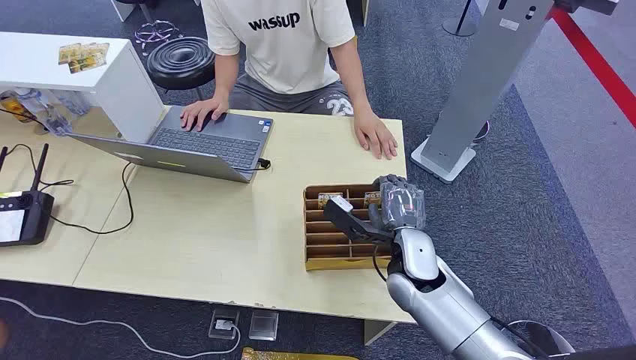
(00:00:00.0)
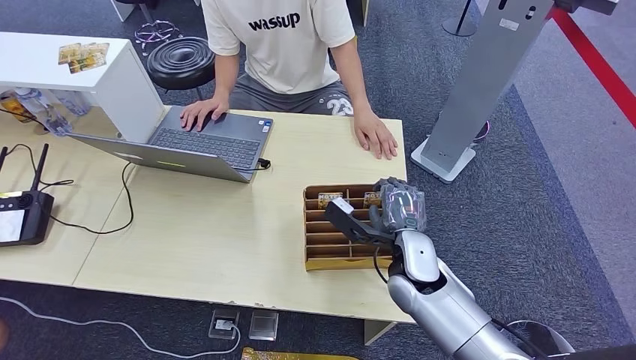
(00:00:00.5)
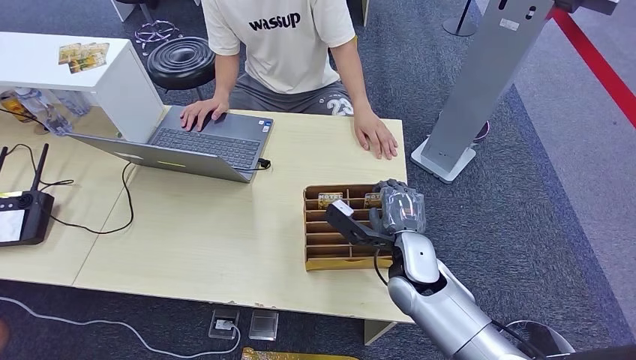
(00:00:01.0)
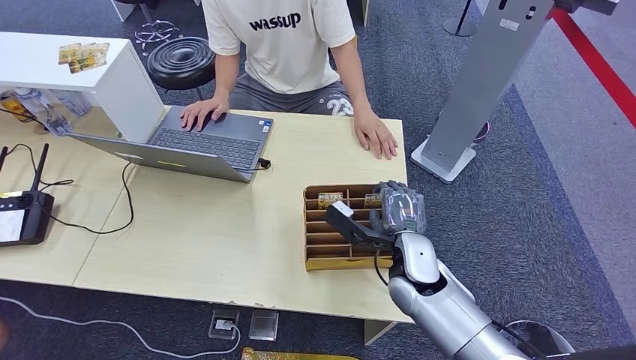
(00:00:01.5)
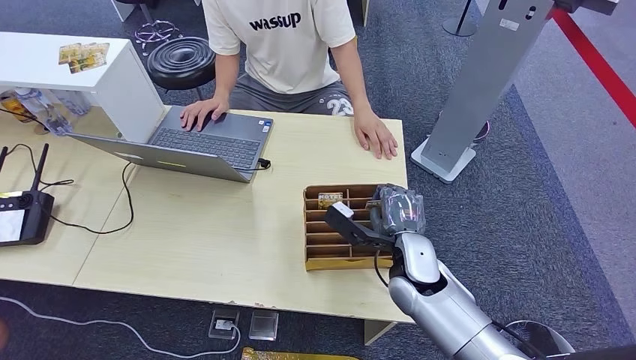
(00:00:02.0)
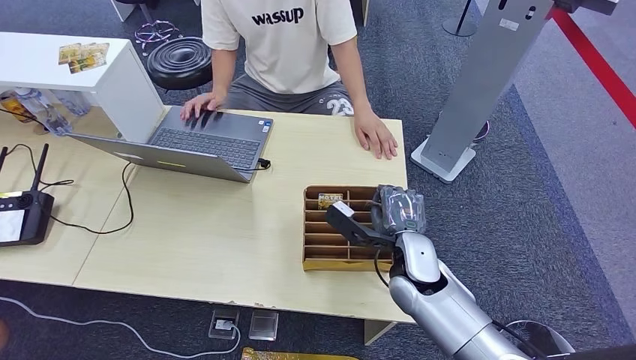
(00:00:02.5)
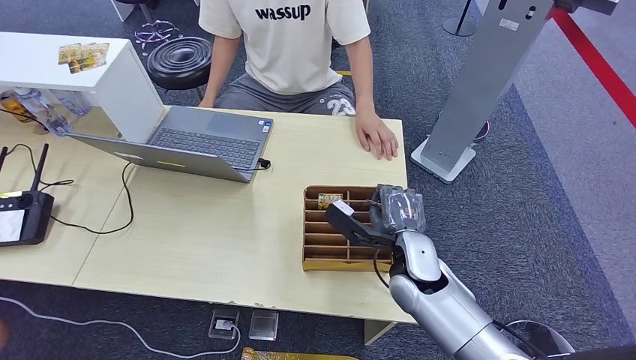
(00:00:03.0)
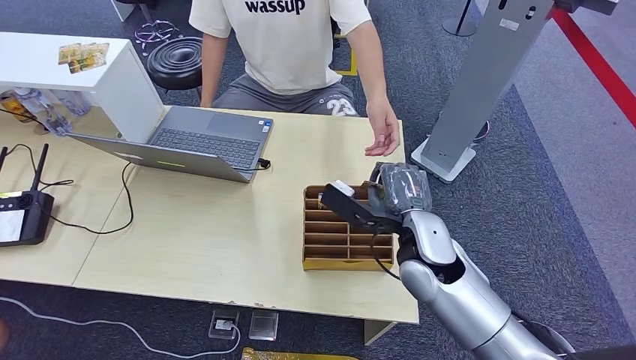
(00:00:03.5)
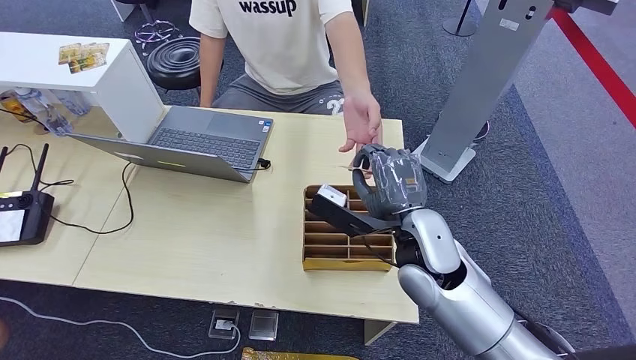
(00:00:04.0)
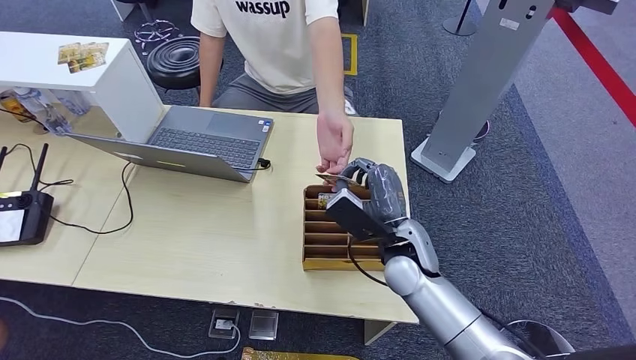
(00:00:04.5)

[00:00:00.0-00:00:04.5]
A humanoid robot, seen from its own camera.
Step, 00:00:00.0 to 00:00:03.0: Pick up the room card from the card holder.
Step, 00:00:04.0 to 00:00:04.5: Hand the room card to the target.
00:00:02.0 to 00:00:04.5: The right hand reaches some 10 cm upward, then returns.
